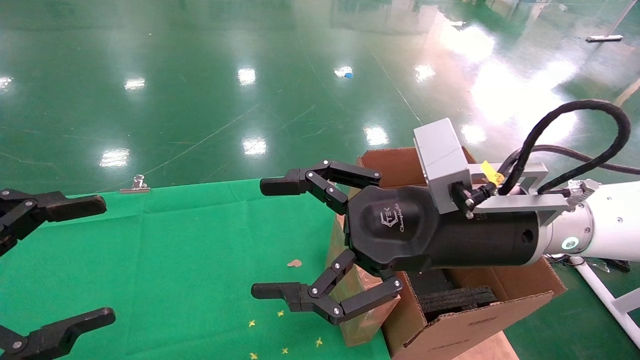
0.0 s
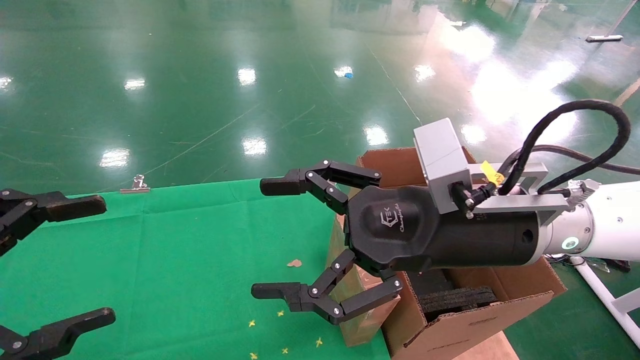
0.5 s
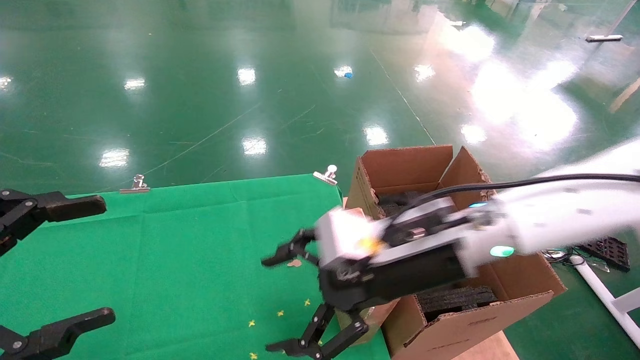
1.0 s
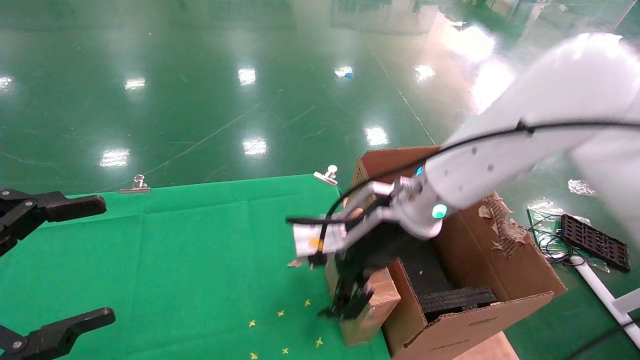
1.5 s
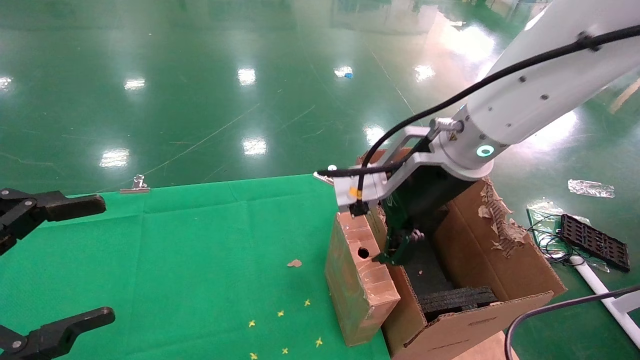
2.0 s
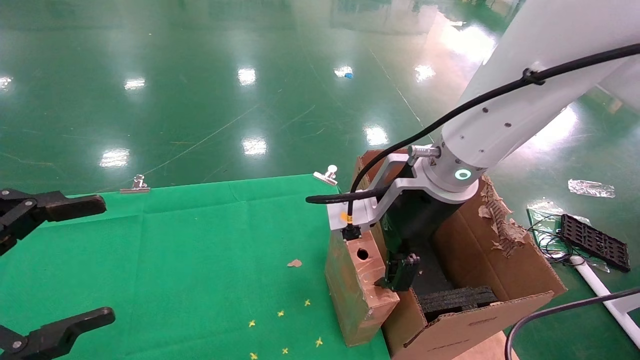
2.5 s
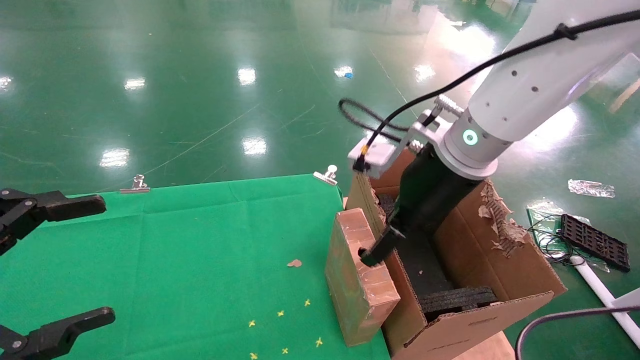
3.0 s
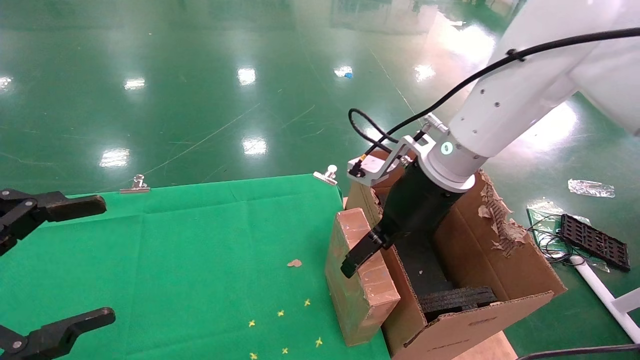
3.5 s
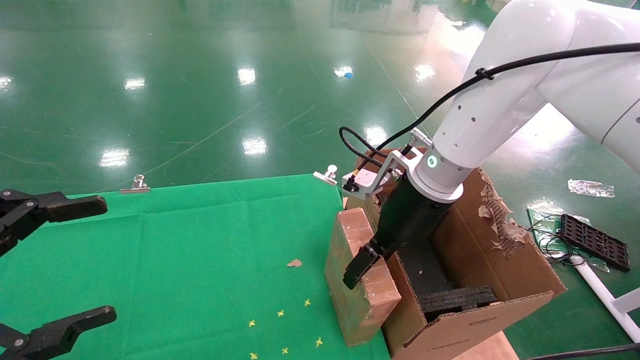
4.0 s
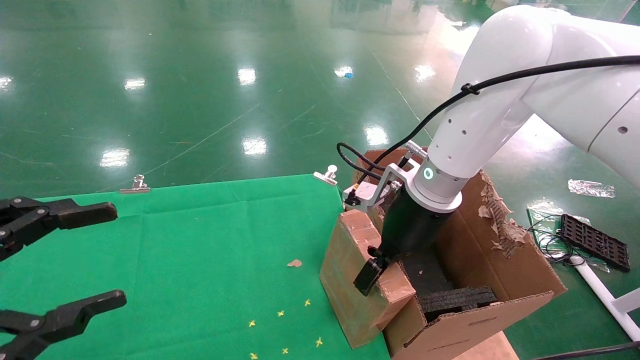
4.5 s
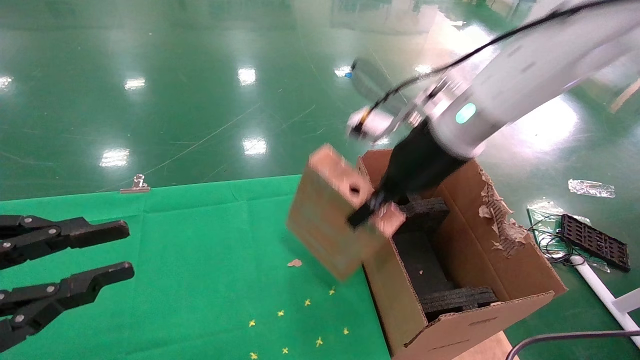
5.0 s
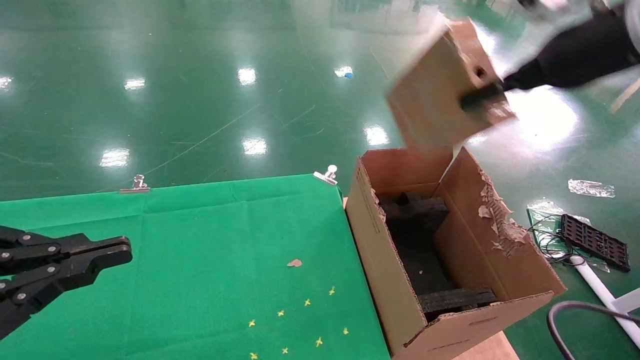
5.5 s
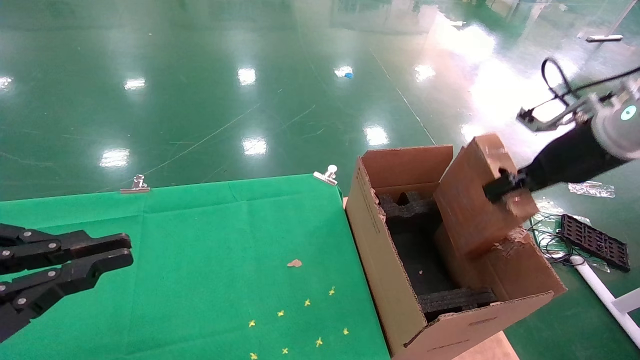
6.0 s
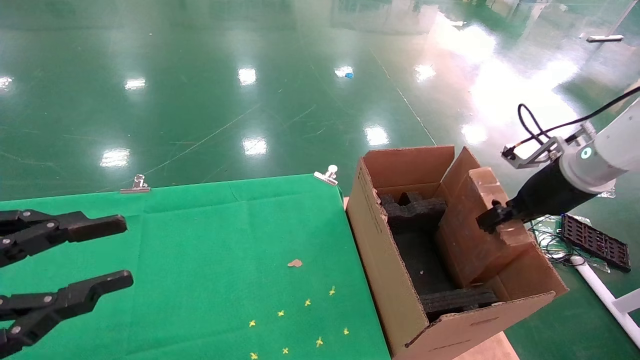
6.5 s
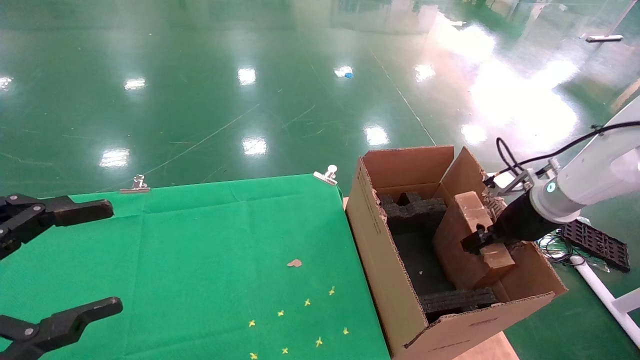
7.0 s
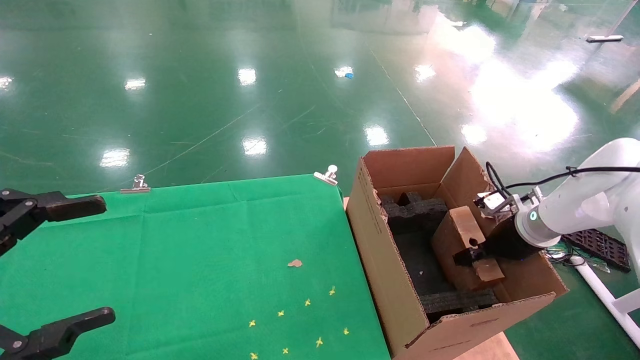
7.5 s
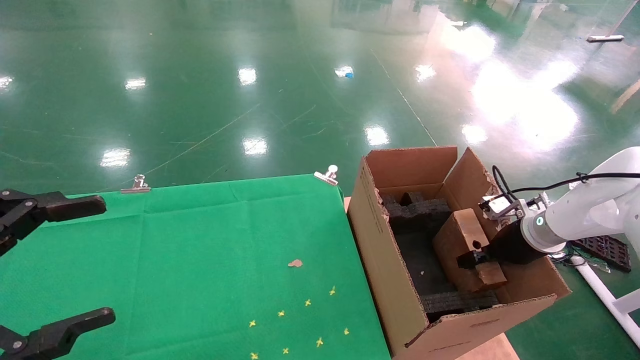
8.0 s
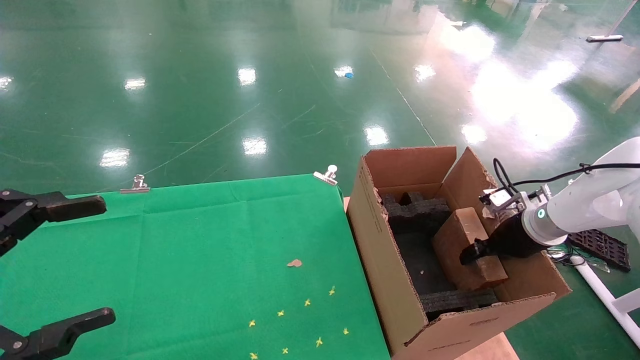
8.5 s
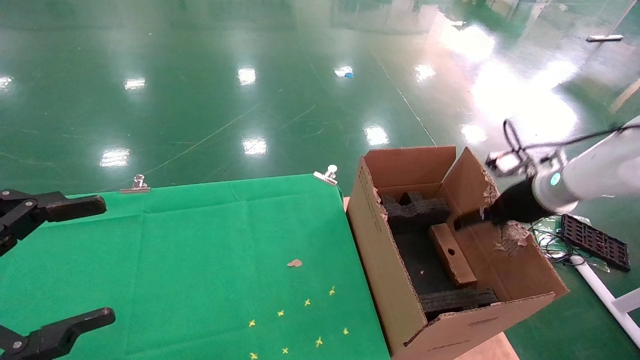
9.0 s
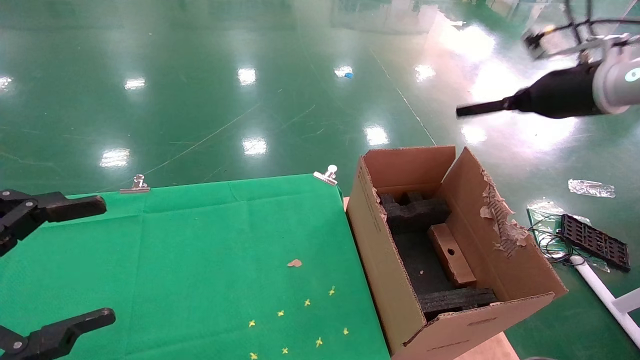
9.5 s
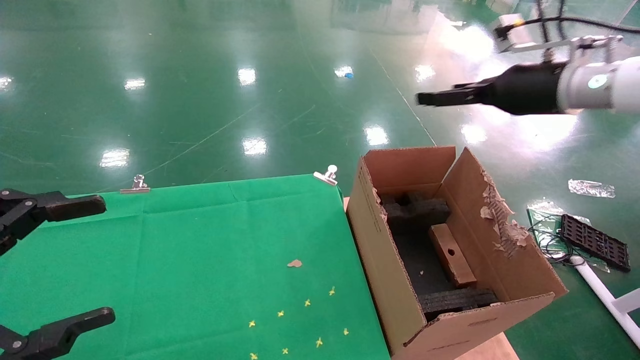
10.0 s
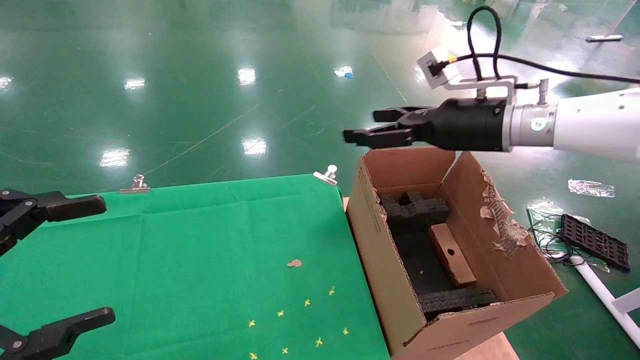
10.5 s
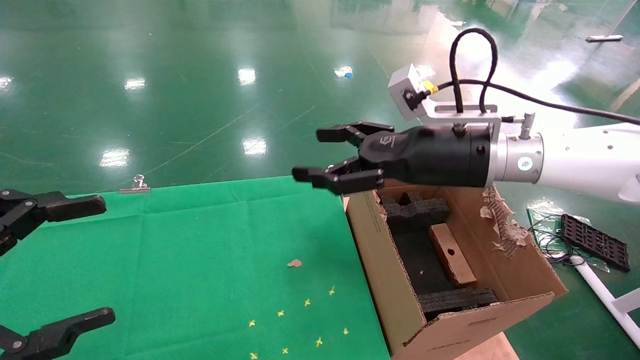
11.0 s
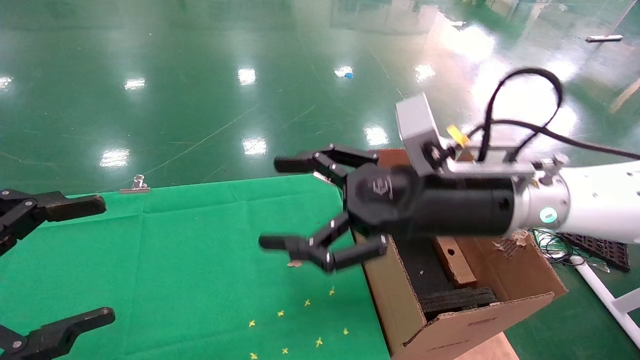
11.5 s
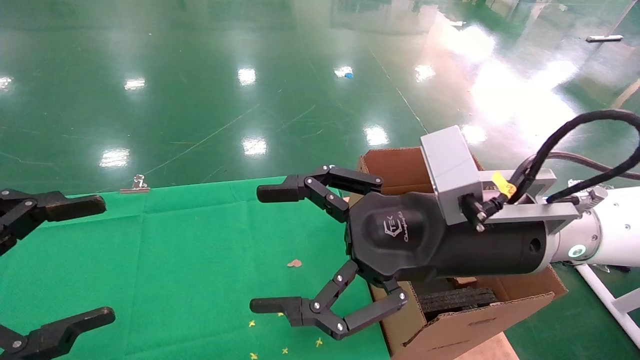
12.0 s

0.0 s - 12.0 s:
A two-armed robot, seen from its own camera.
Task of the whole recording: using a robotic arm to pick up a cardboard box and palace it the carton.
Step, 1.0 s - 5.5 s: Pick up the mouse and the power cord paper box.
Step, 6.0 s - 10.5 s: Place the mouse and the power cord paper box into the container.
0.0 s - 2.0 s: The right gripper travels forward by some 10 cm.
2.0 s - 4.0 s: The right gripper is displaced forward by approximately 5 cm.
4.0 s - 6.0 s: The right gripper travels to the right by about 25 cm, and closes up, while the left gripper closes its fingers.
6.0 s - 8.0 s: The right gripper shifts roughly 20 cm downward; the left gripper opens up.
8.0 s - 10.0 s: The right gripper moves upward, approximately 25 cm, and opens.
10.0 s - 12.0 s: The right gripper is displaced to the left, backward and downward by roughly 25 cm.

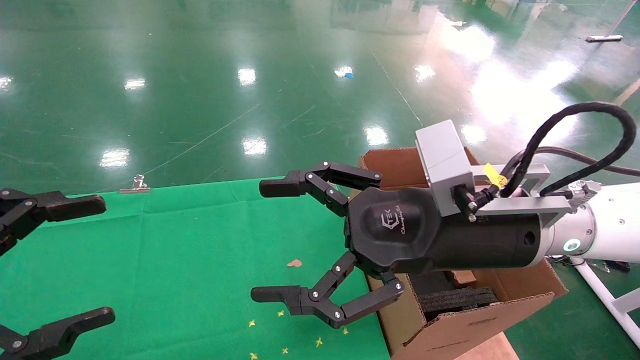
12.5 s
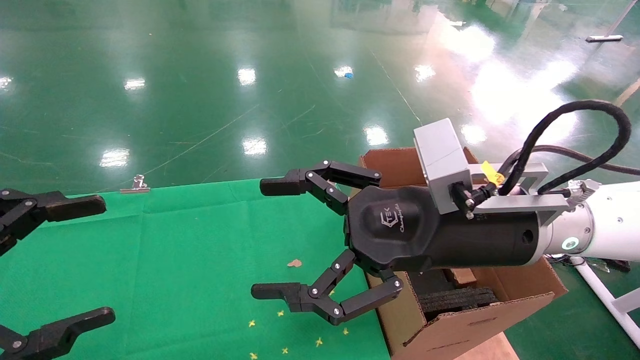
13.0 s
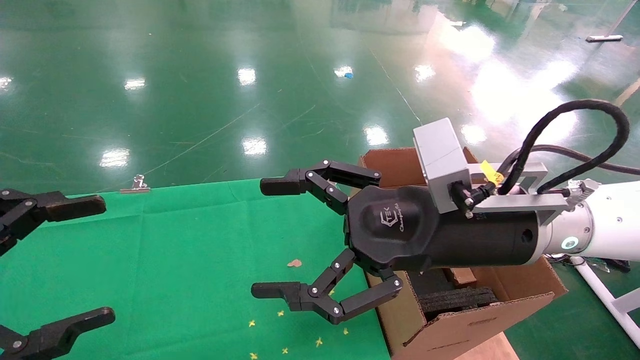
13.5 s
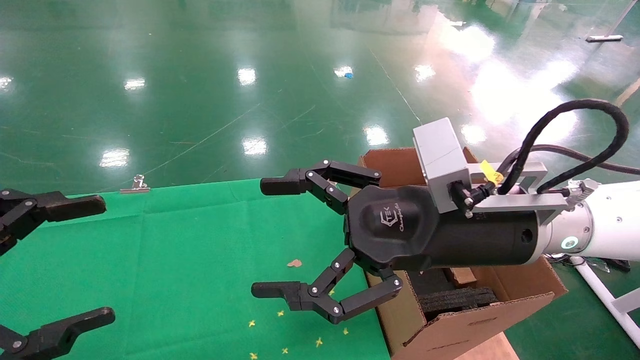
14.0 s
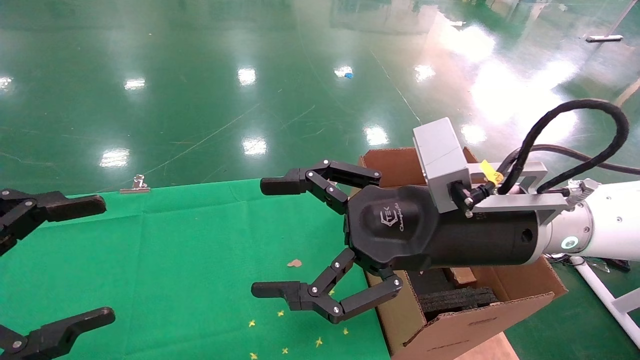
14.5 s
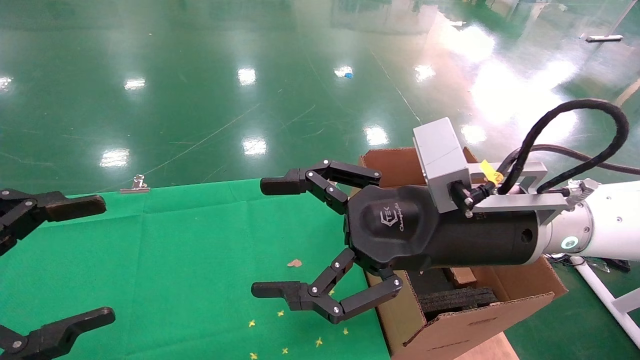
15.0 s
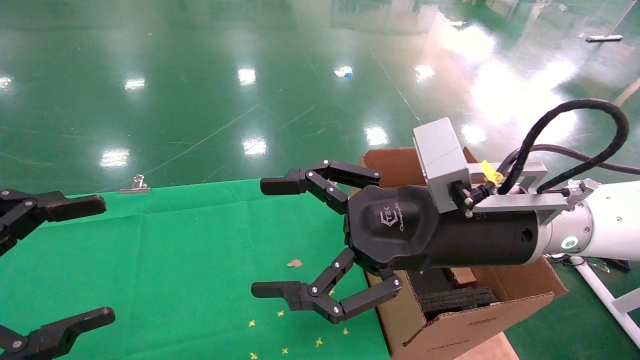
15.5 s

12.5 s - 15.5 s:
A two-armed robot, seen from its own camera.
Task of the whole recording: using a robotic arm to pick up a cardboard box and palace it the carton.
12.5 s - 15.5 s: Both grippers stay put.
